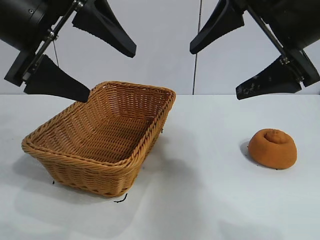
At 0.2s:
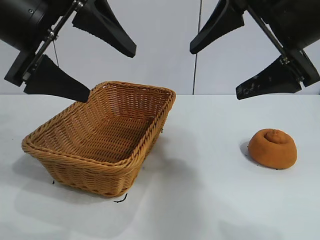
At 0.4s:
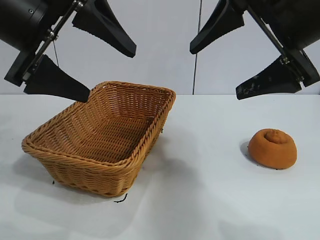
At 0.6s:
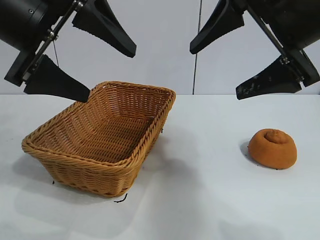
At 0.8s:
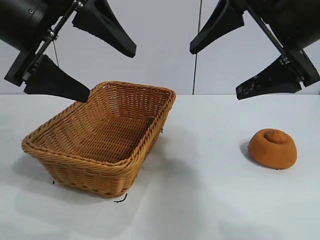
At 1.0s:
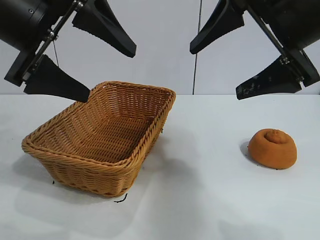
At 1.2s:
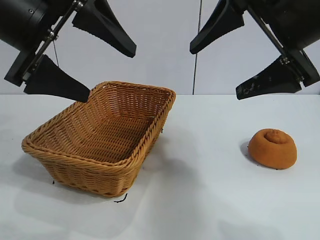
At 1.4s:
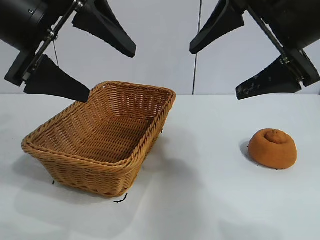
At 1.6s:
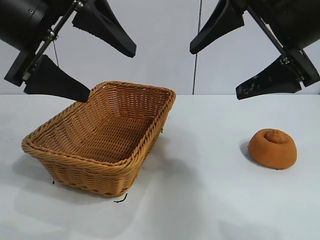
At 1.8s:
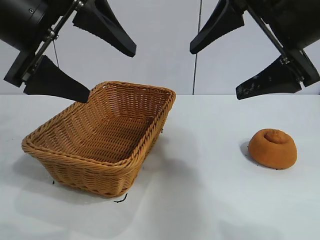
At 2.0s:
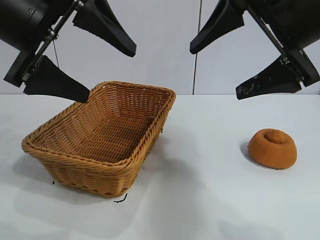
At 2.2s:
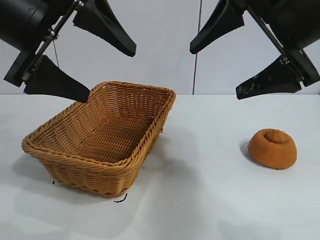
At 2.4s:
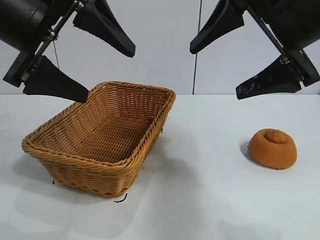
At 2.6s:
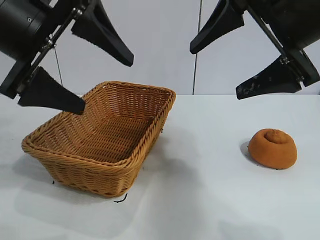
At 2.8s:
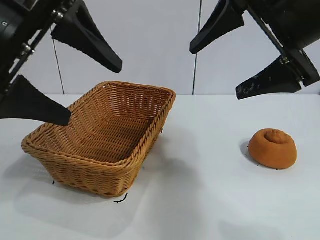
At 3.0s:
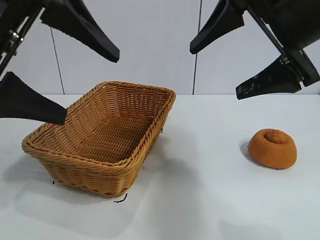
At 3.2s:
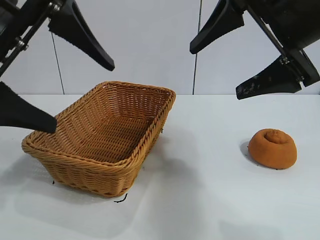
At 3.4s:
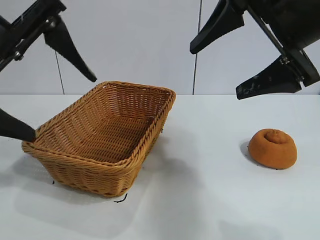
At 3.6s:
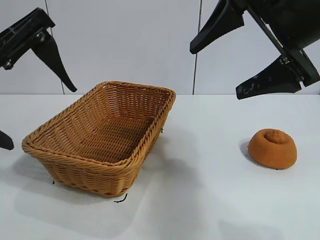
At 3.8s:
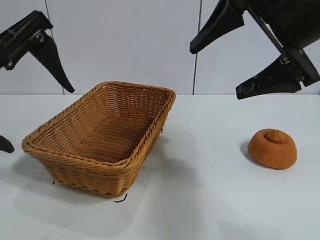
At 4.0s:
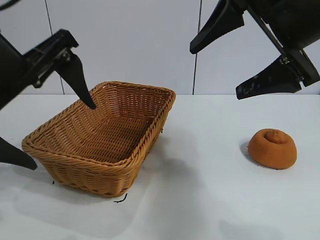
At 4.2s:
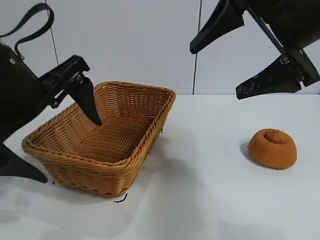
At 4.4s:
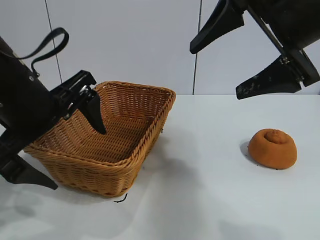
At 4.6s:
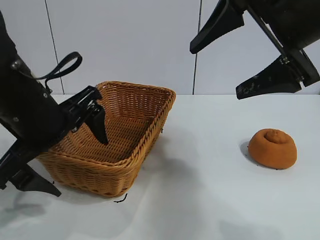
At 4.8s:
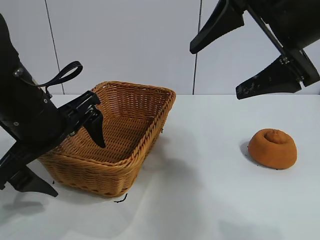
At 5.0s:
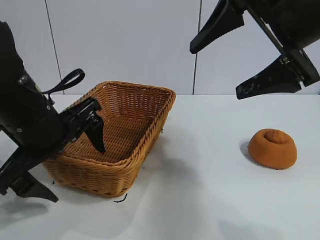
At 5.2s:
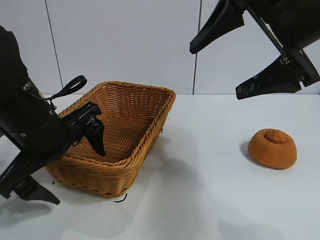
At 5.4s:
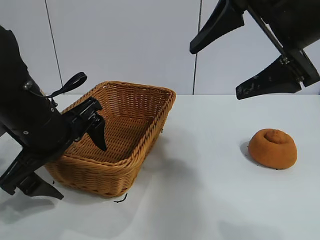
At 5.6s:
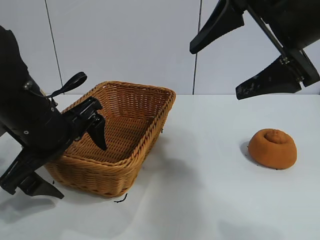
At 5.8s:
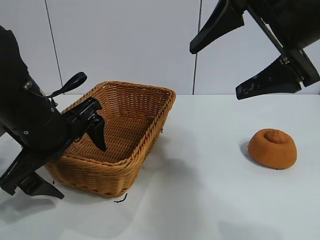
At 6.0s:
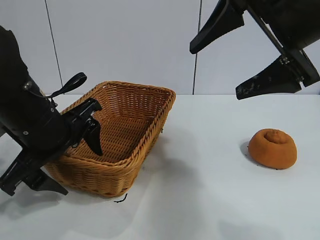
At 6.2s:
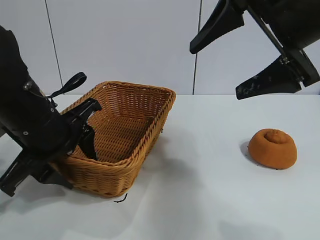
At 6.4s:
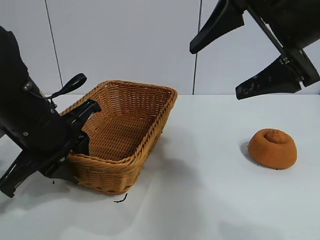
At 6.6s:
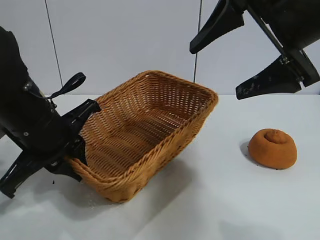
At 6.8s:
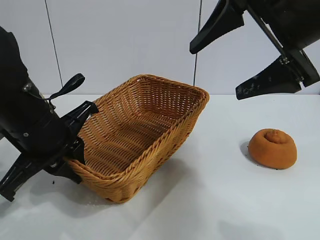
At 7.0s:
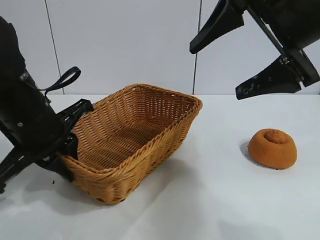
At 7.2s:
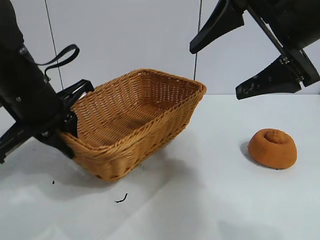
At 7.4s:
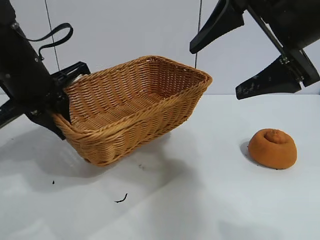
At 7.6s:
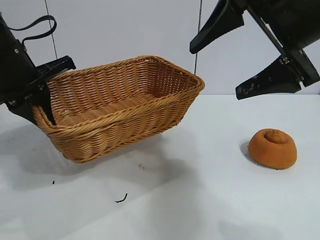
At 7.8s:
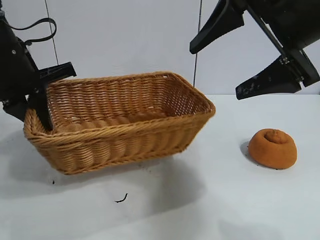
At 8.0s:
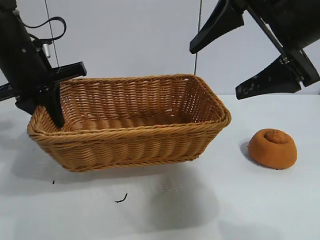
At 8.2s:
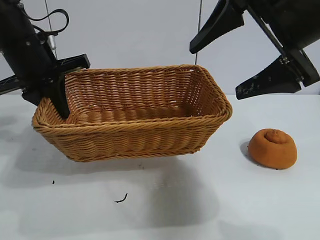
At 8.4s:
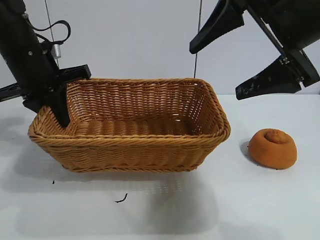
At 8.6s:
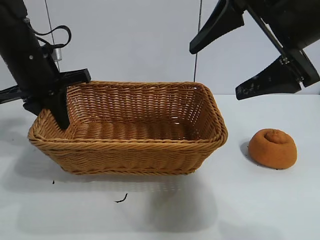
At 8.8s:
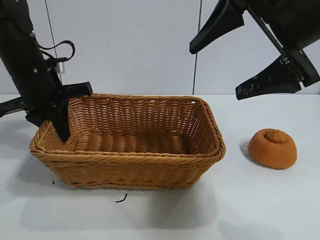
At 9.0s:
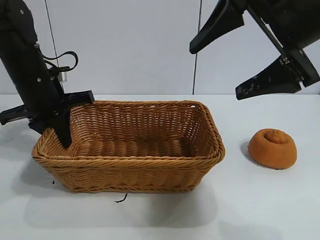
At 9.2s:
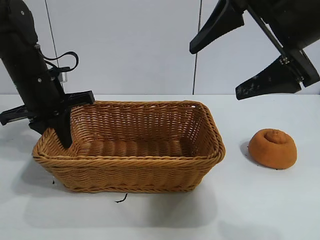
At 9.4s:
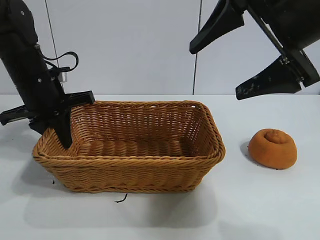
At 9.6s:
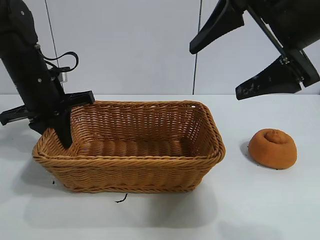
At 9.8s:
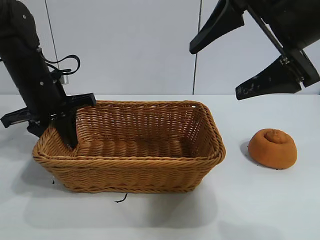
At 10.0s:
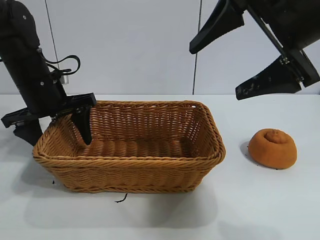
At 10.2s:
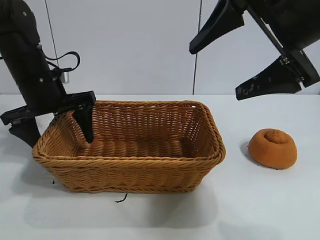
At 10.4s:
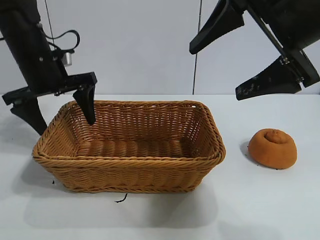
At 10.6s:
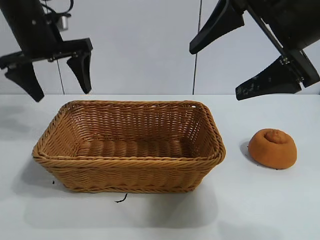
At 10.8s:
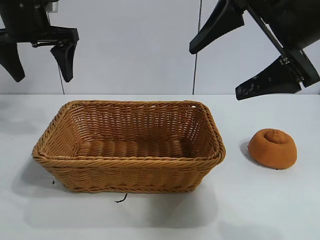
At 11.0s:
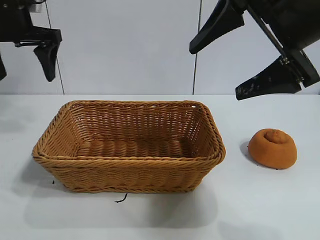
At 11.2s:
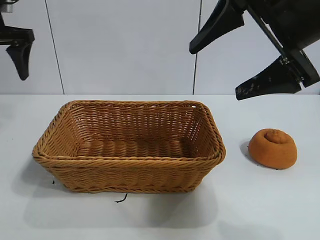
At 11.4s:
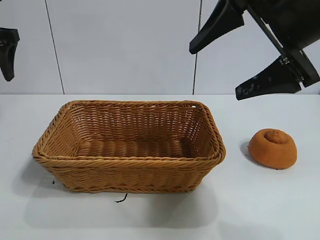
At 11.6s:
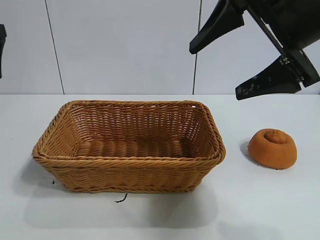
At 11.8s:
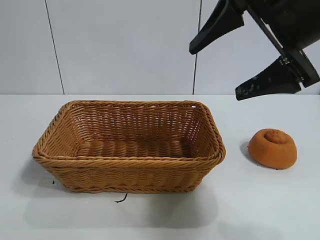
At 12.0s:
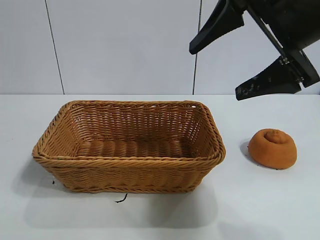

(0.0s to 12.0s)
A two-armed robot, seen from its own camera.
Task of the whole recording: pick up the orange and put it into the basket.
Step, 2.4s - 6.6s: Grasp the basket with left gripper.
Step, 6.8s - 10.0s: Place the basket in the center of view with left gripper.

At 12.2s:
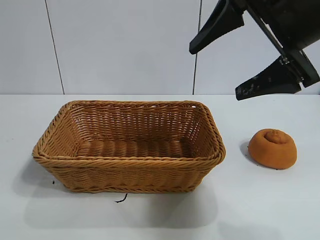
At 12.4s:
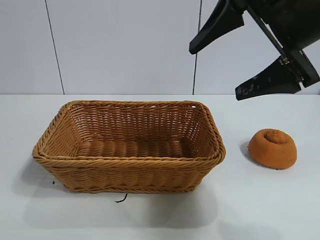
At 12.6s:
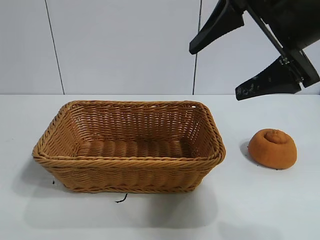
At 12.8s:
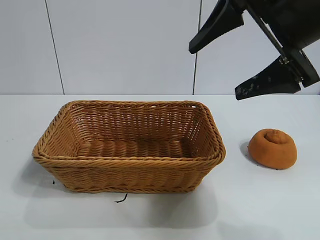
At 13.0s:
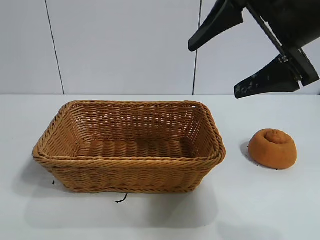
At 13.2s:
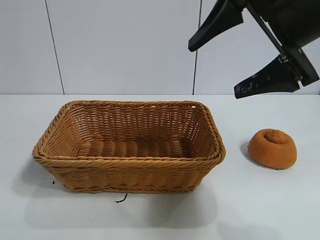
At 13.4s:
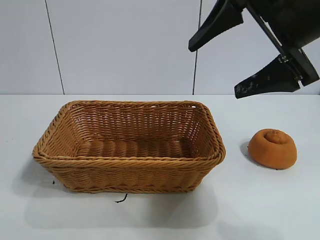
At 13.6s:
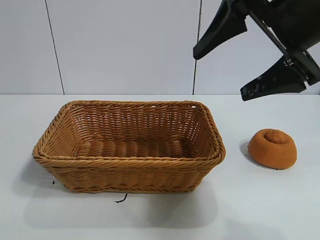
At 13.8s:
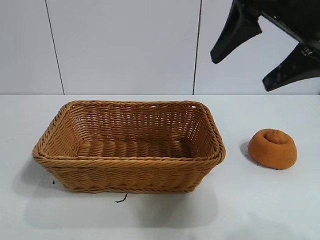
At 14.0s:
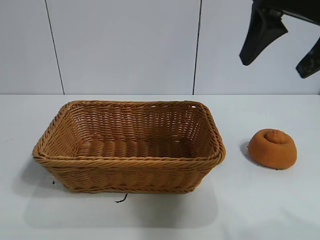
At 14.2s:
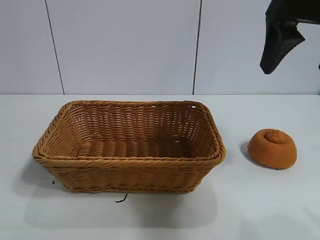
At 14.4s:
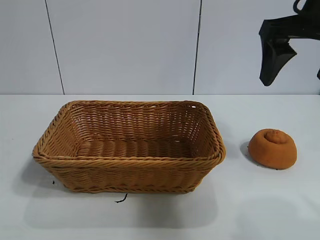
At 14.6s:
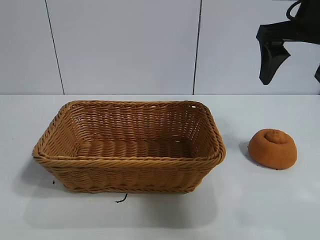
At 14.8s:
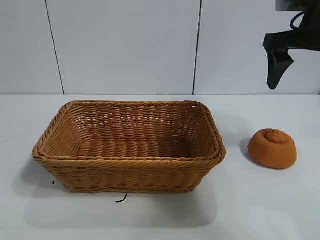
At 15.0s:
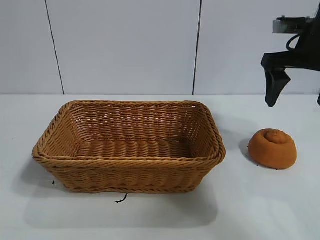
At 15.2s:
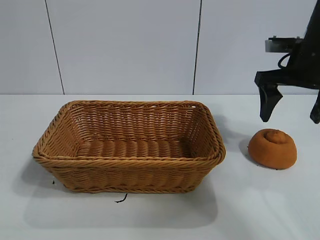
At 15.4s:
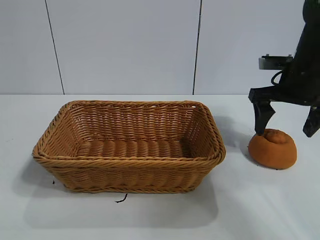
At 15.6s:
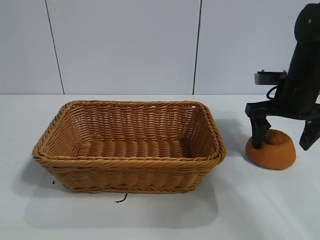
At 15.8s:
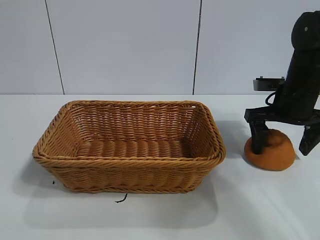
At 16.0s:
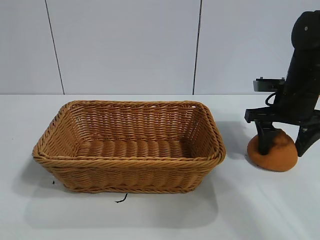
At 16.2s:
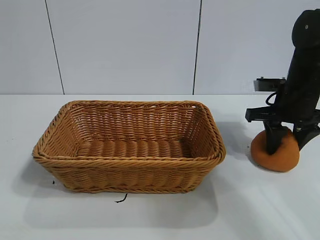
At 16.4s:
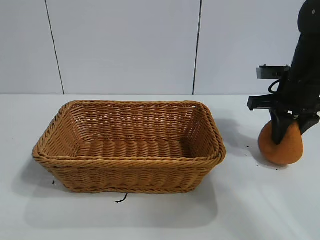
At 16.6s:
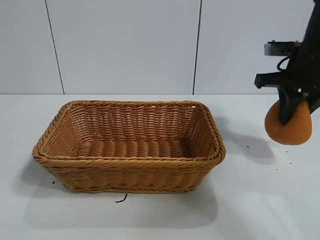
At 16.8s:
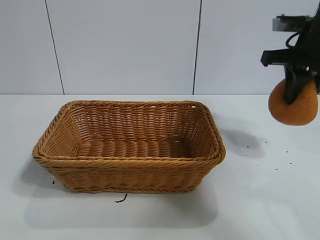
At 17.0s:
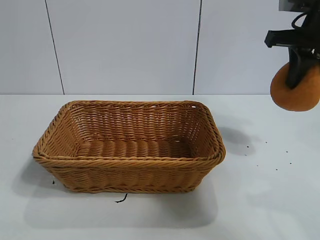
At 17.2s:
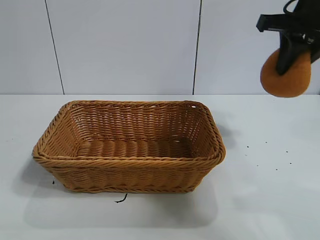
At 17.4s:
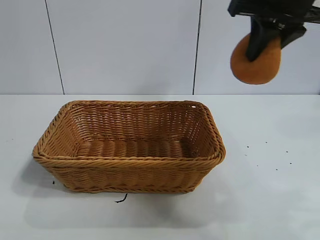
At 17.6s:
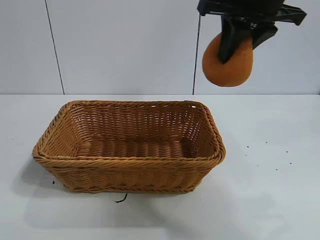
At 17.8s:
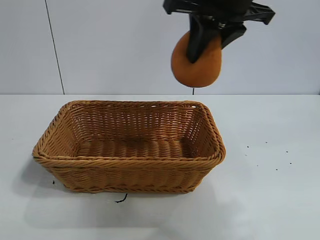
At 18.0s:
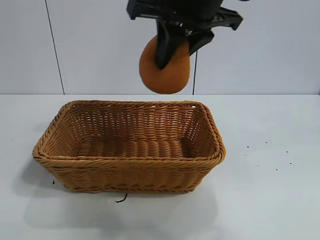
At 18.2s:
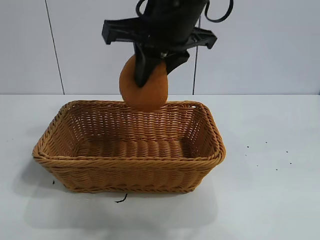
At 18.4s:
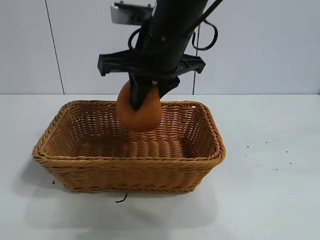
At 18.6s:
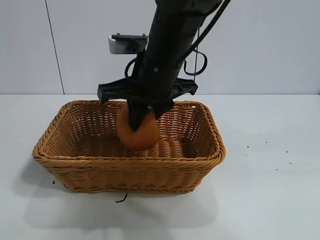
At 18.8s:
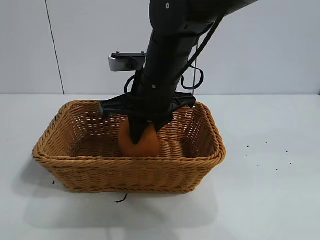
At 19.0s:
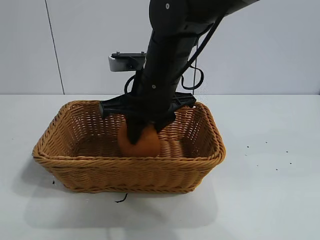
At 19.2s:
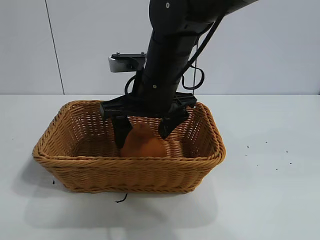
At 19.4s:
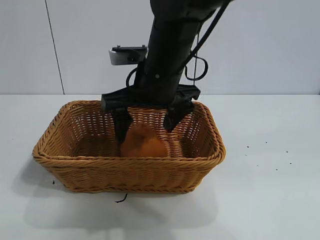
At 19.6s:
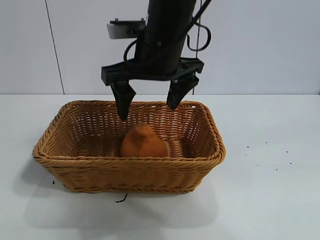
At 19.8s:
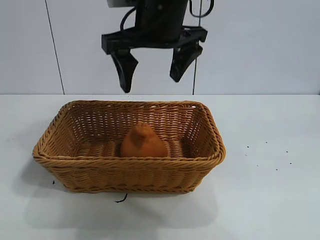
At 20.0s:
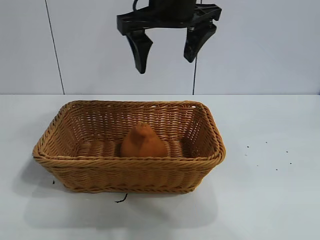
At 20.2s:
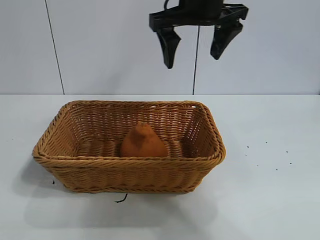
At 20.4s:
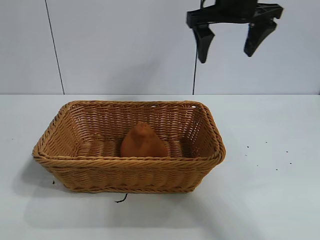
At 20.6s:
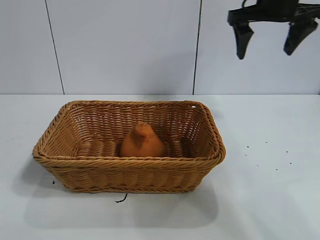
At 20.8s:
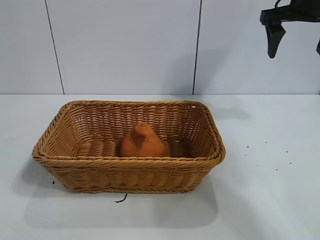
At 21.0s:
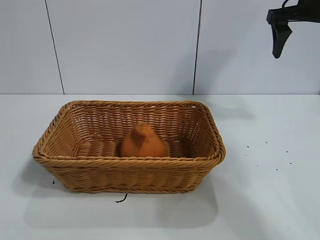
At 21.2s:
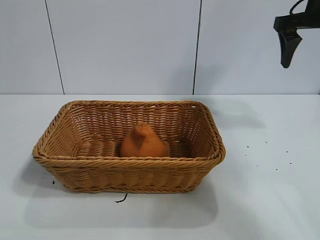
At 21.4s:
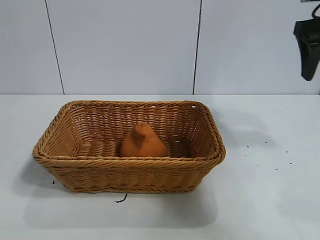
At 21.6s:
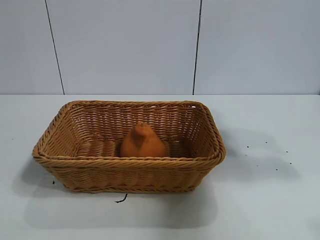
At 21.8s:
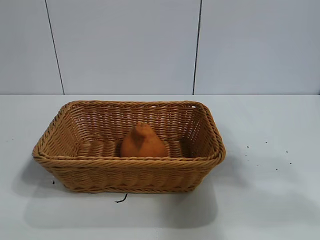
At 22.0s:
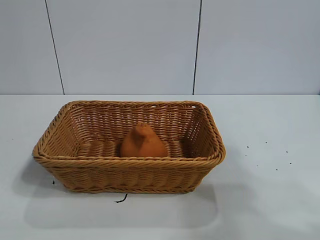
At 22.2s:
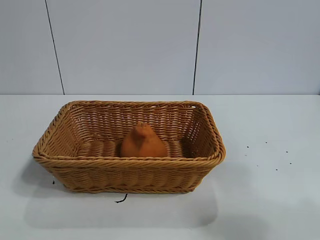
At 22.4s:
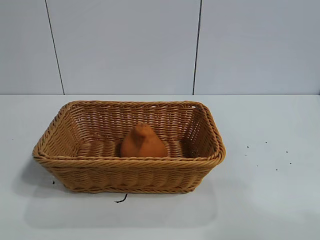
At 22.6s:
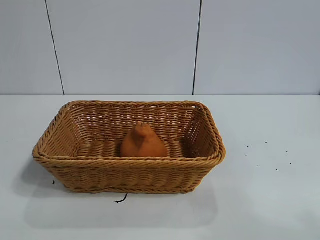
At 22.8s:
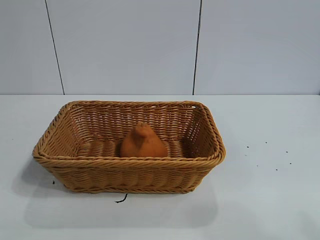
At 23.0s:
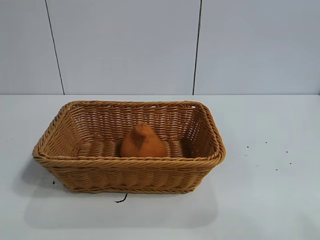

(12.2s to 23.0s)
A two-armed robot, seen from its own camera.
Task of the whole recording: pick up the orange and put it into the basket.
Step, 12.2s - 16.2s: Grasp the orange with right gripper.
Step, 16.4s - 19.2s: Place the orange in the basket with right gripper.
